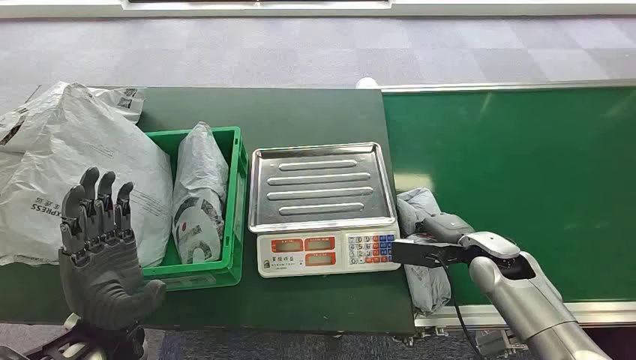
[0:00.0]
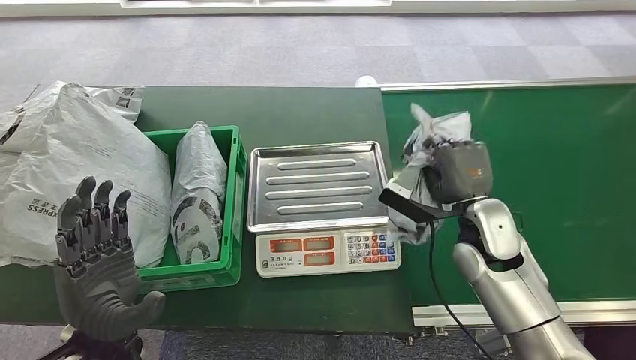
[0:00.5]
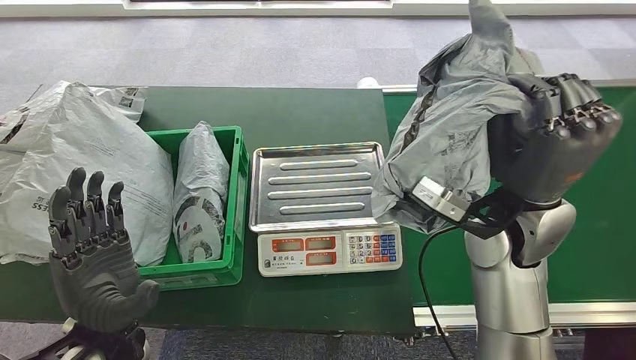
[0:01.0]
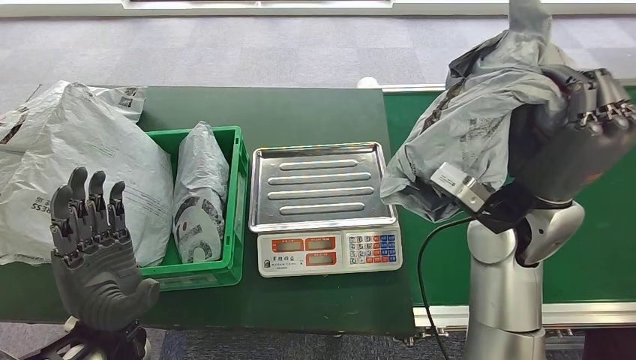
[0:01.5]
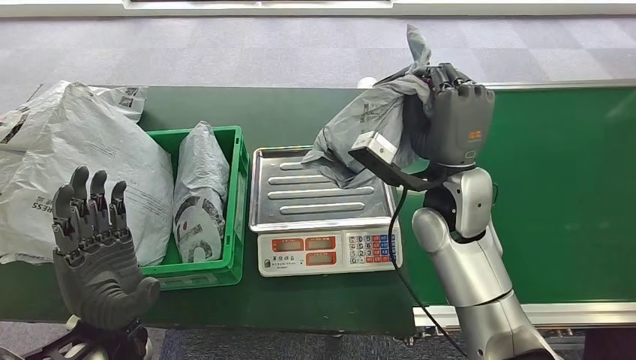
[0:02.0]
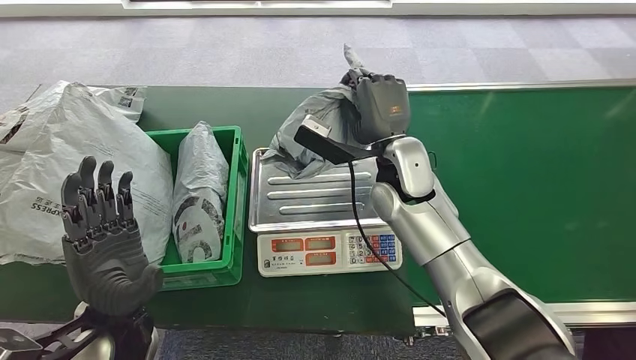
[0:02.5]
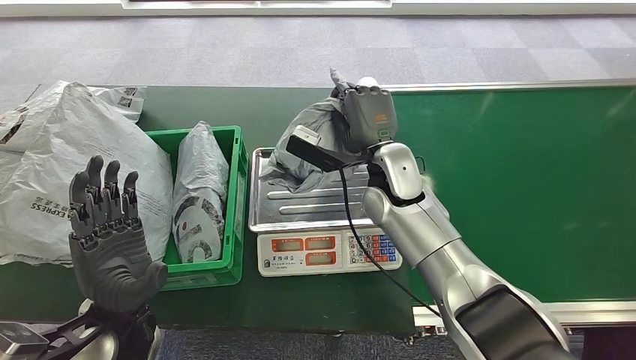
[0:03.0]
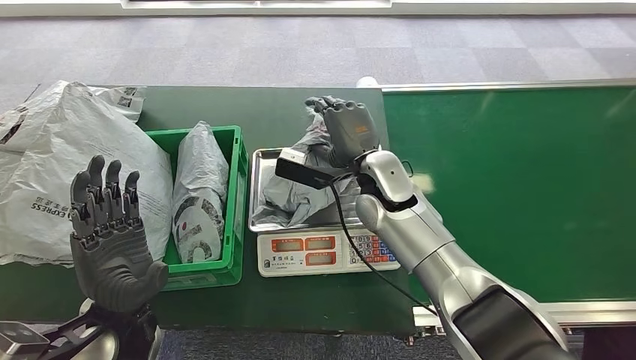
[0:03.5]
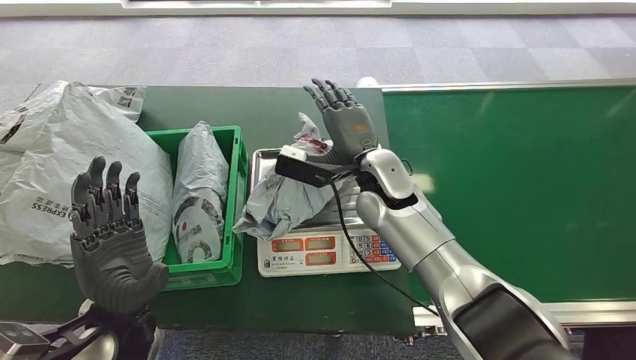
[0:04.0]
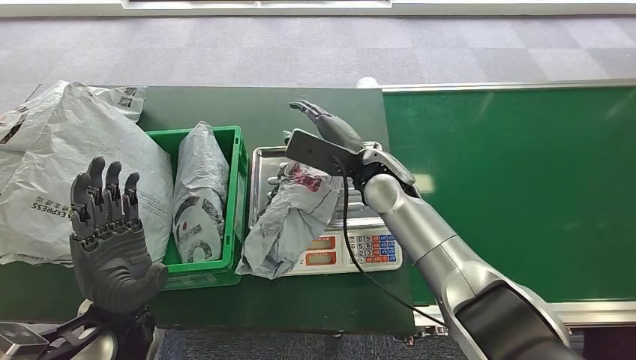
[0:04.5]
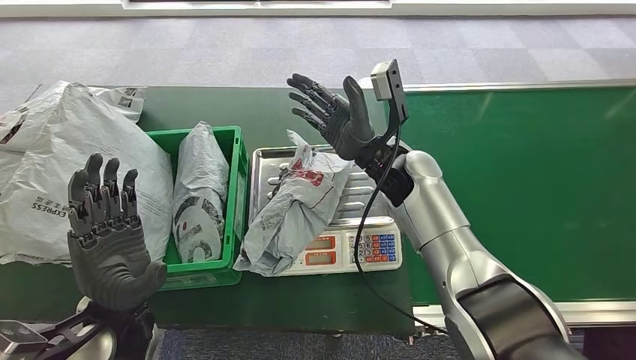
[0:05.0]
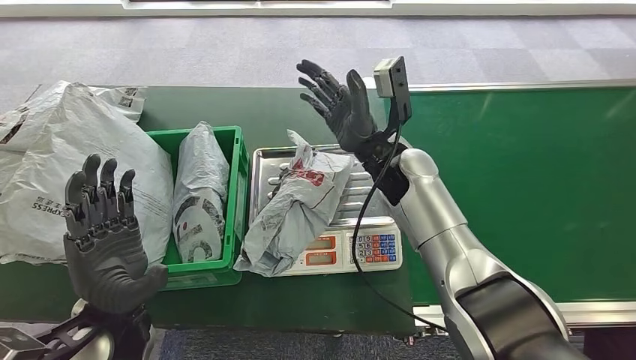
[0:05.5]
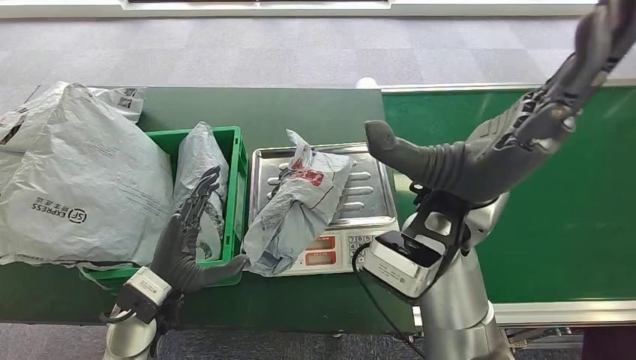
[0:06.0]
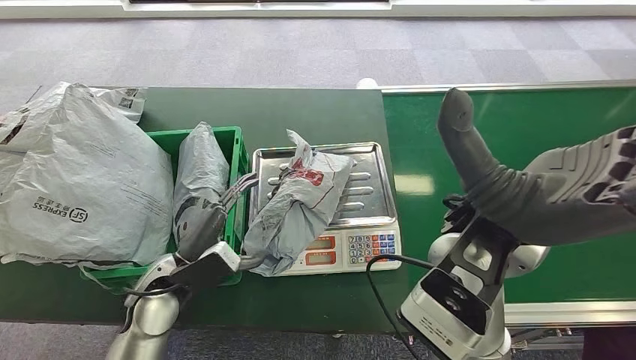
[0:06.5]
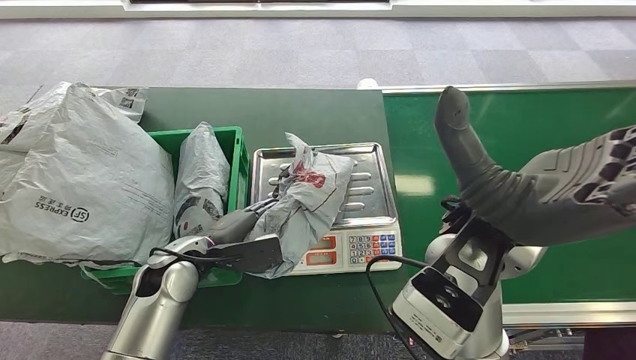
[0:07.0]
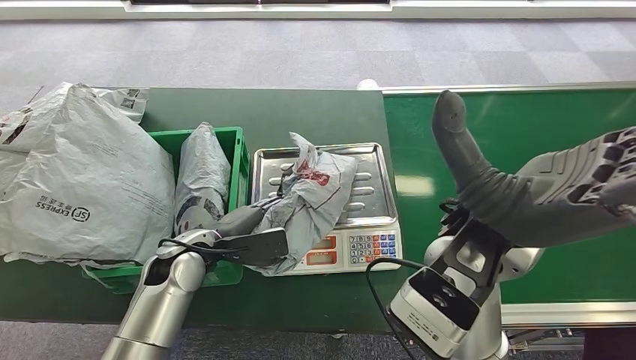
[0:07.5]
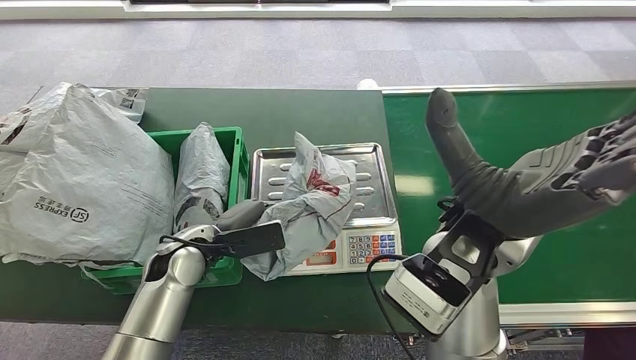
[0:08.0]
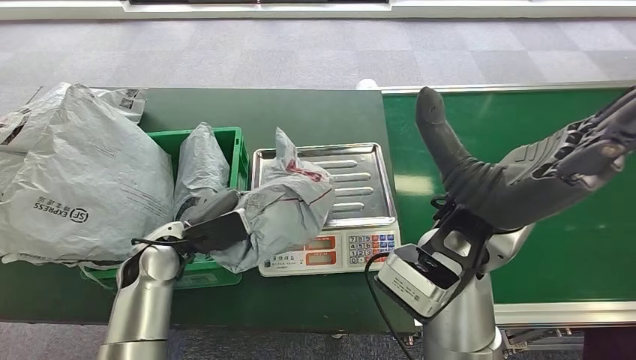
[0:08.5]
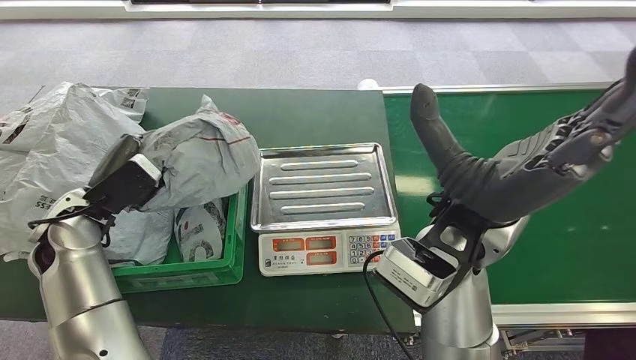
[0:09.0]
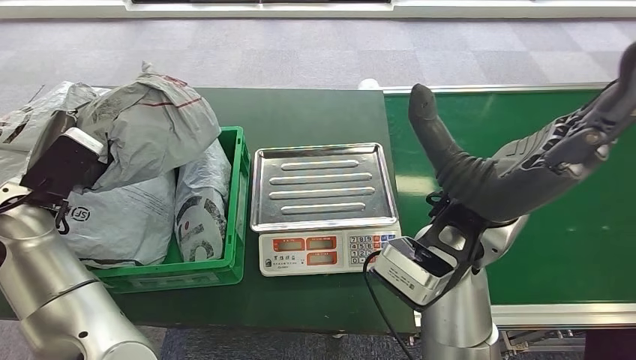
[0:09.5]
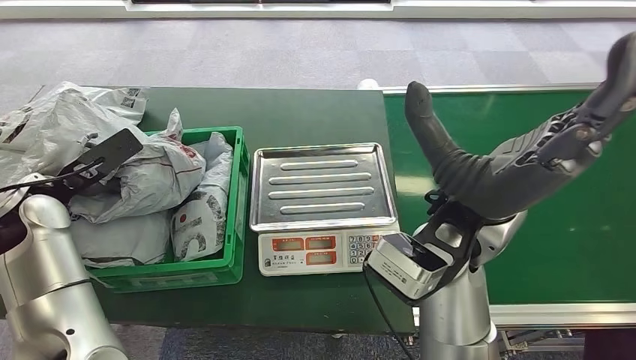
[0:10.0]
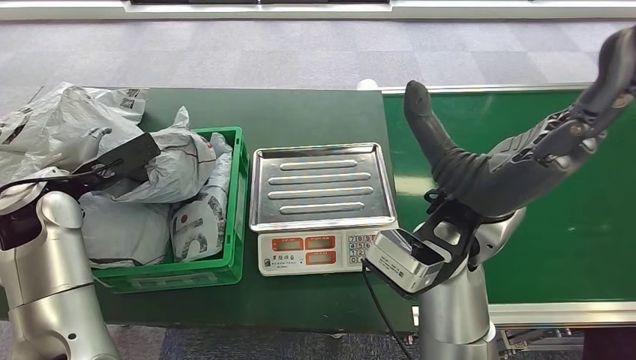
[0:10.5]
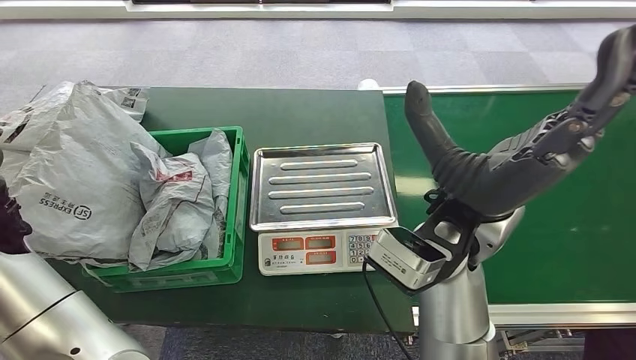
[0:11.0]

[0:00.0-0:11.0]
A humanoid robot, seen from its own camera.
Step, 0:00.0 to 0:01.5: Pick up the package from the conveyor belt.
Step, 0:02.0 to 0:03.5: Place the package onto the inbound machine.
Step, 0:08.0 to 0:09.0: Pick up the package from the inbound machine.
Step, 0:09.5 to 0:11.0: Place the package into the parcel locker.
